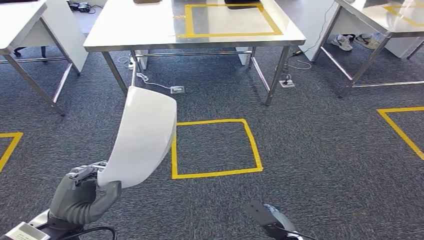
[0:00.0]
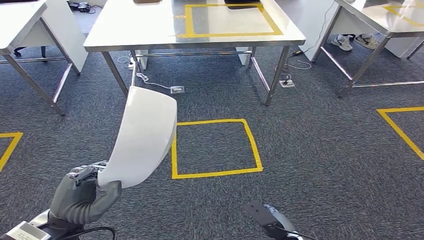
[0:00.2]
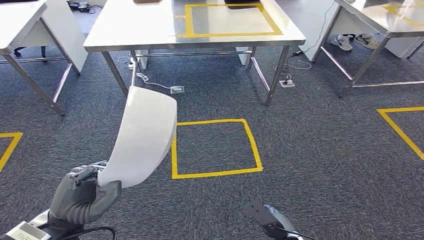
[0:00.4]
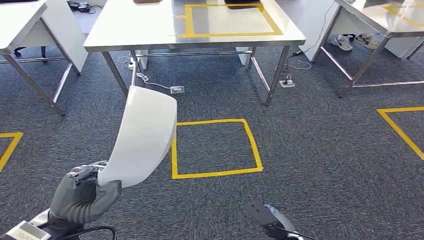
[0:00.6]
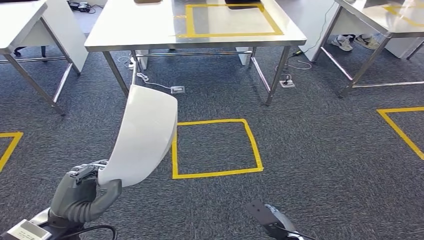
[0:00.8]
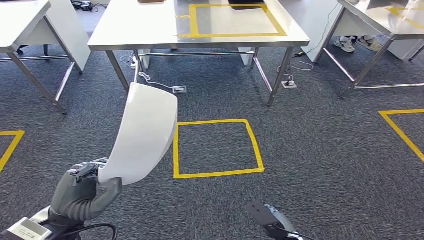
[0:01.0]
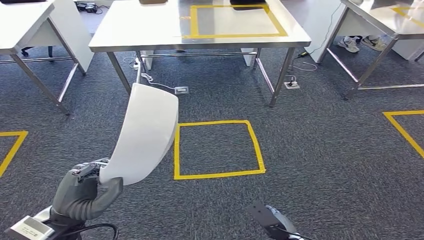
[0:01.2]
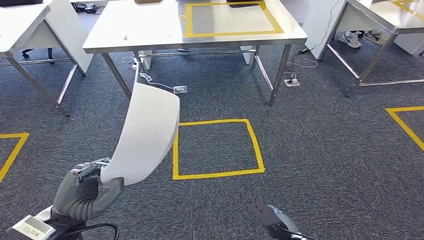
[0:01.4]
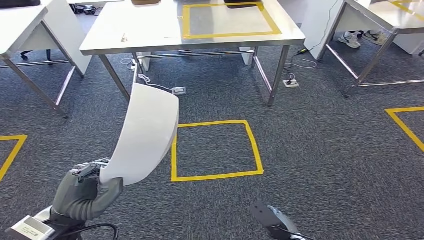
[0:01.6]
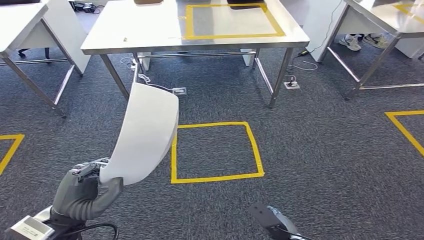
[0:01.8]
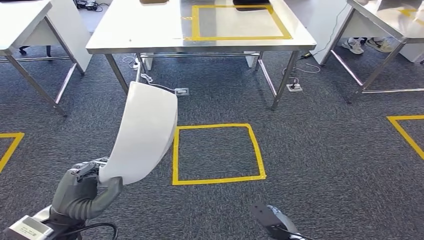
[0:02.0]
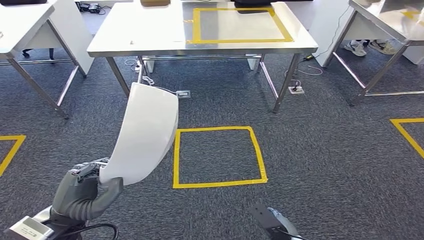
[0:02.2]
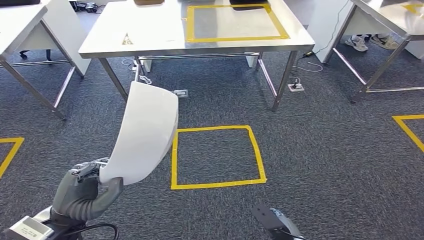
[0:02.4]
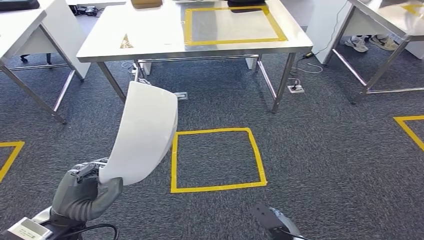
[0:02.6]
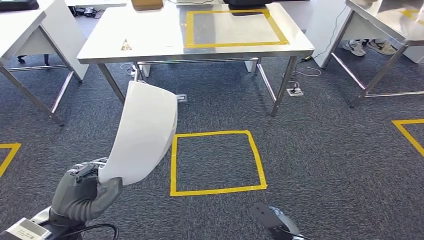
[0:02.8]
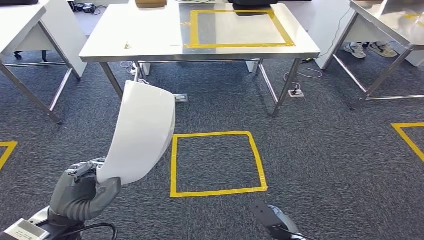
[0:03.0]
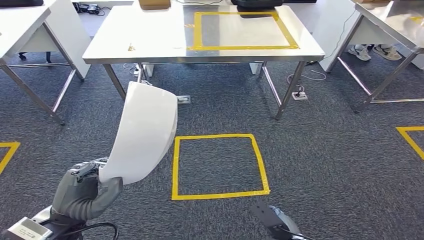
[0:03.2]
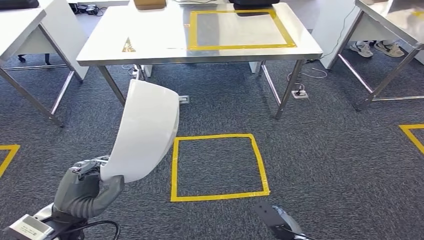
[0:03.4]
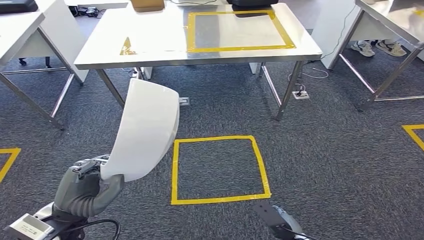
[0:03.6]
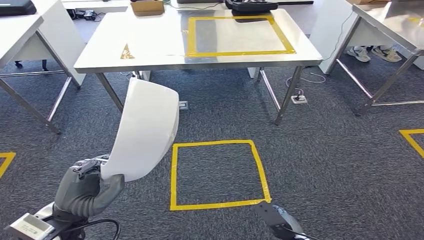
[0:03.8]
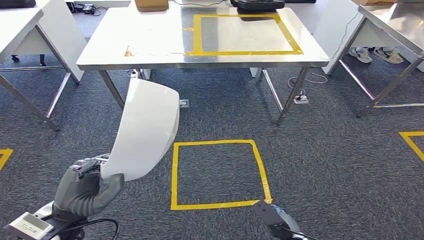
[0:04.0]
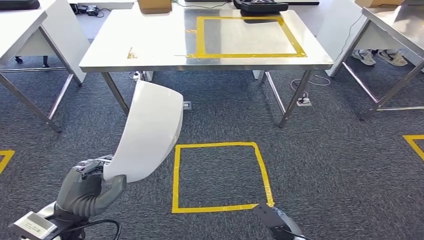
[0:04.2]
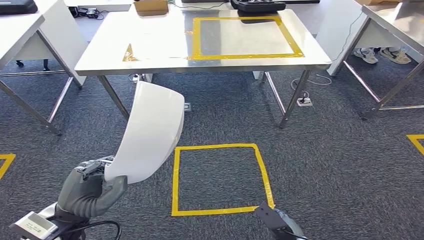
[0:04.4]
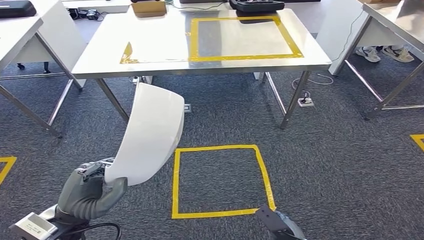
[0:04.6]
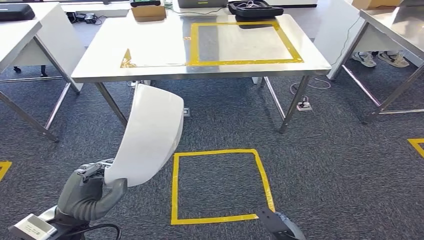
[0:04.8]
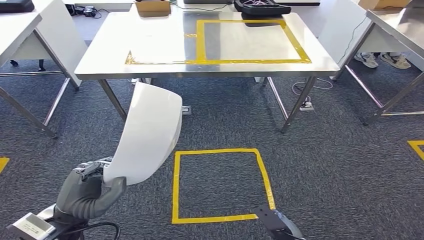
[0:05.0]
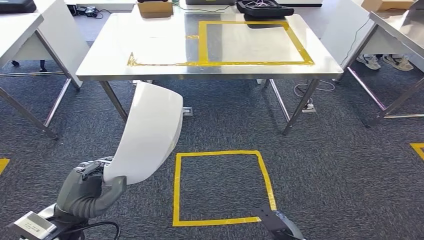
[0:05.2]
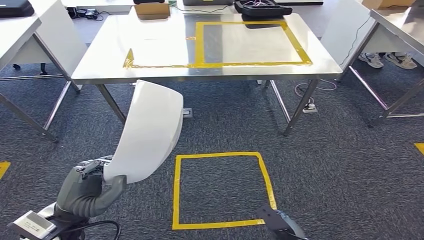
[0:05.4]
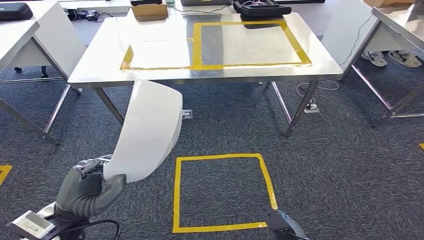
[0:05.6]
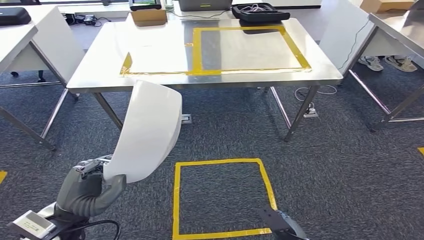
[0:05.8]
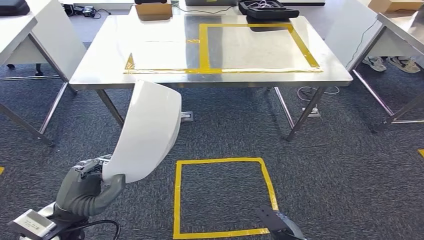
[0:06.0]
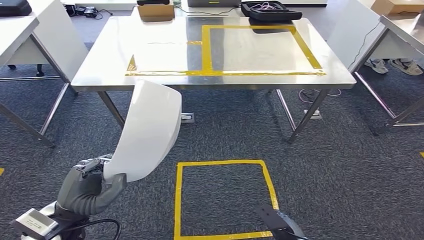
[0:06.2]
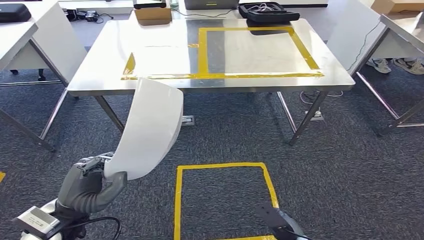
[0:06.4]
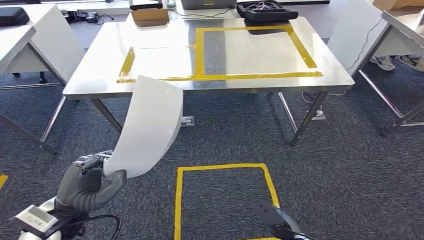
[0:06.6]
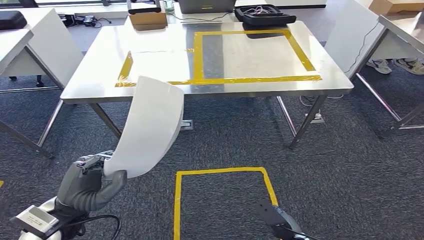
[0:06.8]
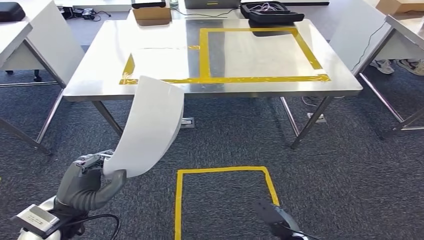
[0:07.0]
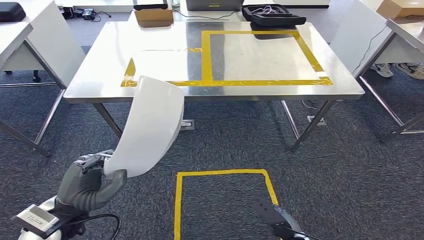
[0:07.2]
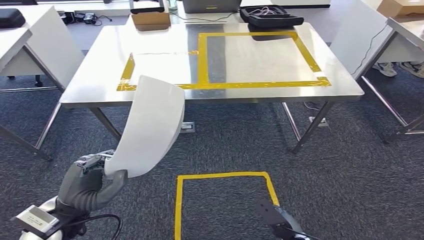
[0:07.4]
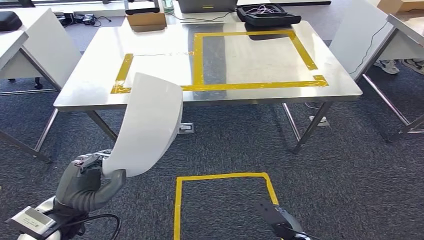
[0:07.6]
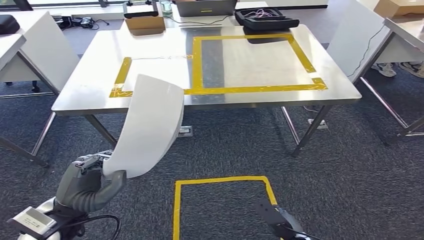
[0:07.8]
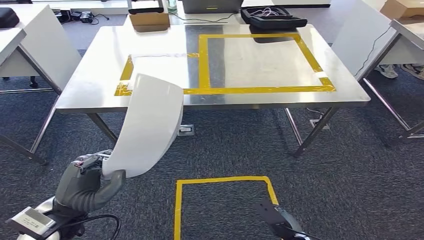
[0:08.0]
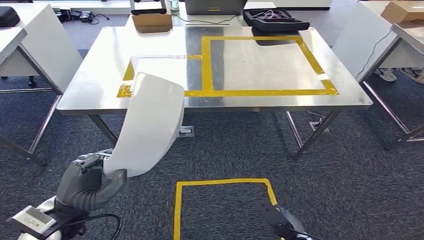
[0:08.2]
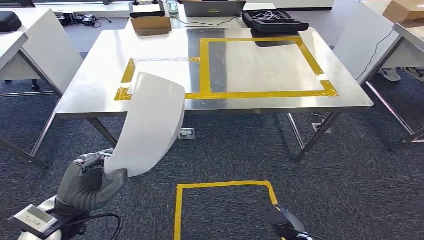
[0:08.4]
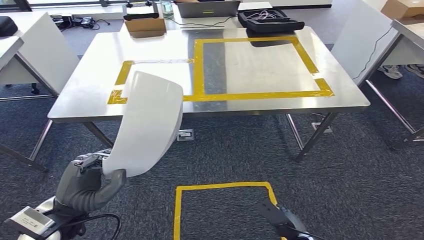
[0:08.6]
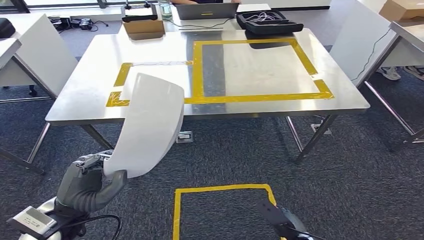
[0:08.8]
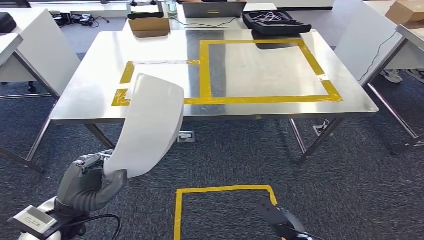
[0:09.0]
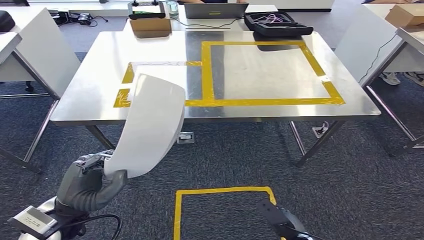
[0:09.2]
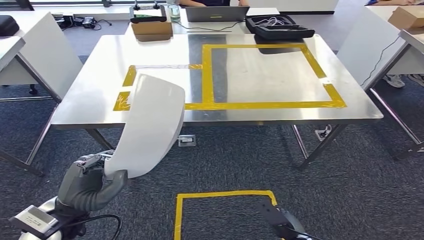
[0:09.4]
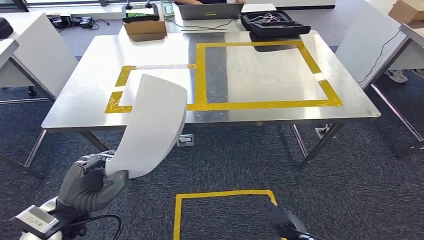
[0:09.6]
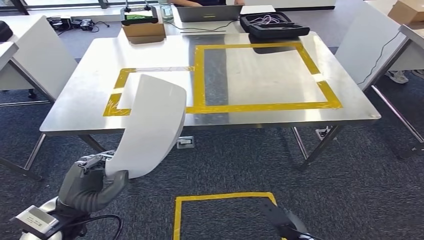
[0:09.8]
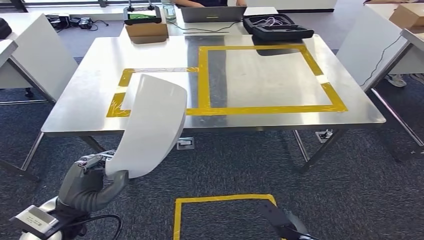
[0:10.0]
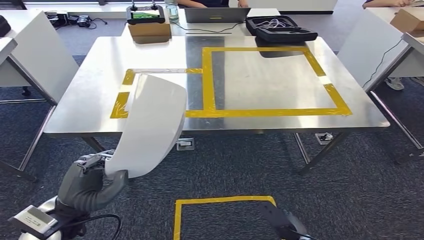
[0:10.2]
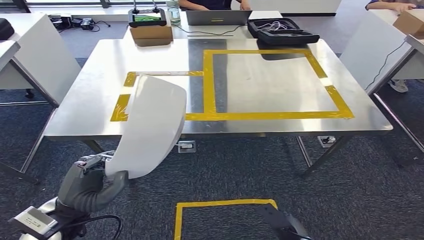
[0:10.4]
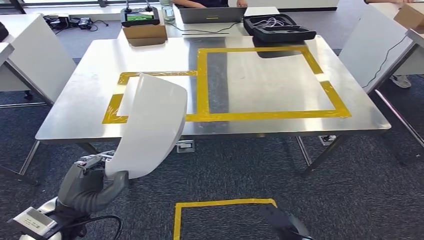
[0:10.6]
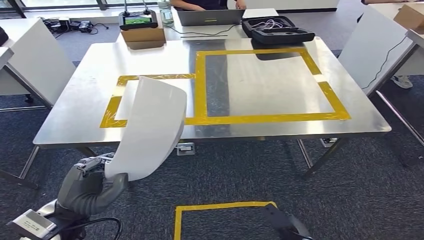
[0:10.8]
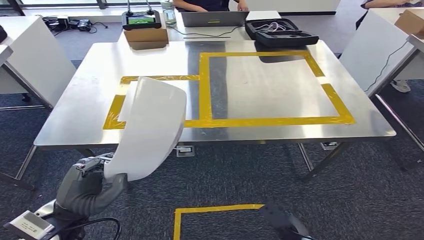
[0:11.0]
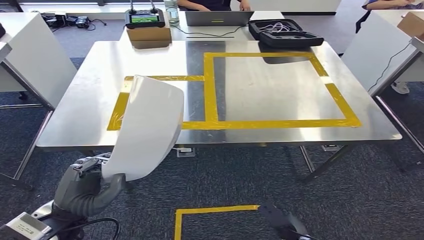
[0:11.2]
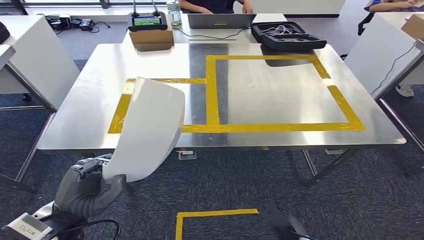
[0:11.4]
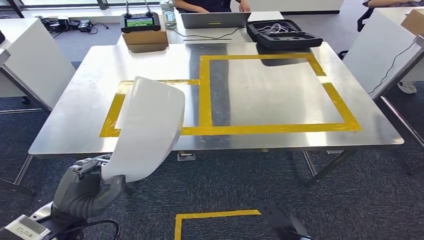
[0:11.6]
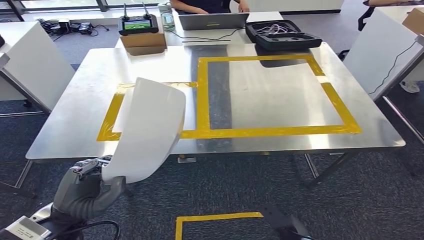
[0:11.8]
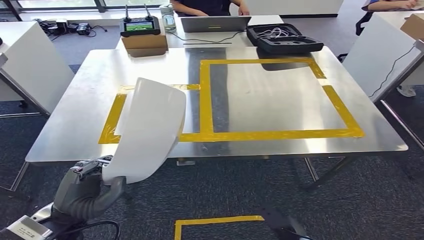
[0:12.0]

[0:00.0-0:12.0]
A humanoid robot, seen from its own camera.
0:00.0 to 0:01.6: The two hands keep their place.

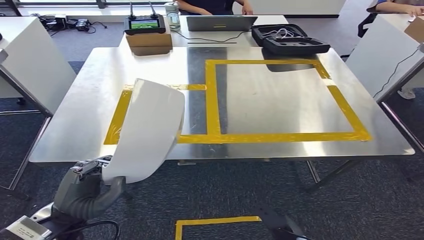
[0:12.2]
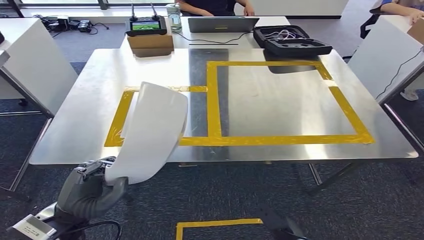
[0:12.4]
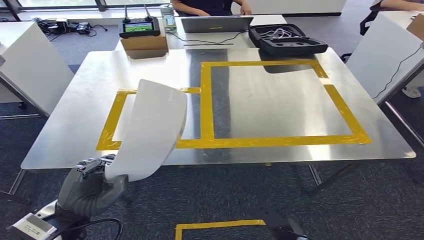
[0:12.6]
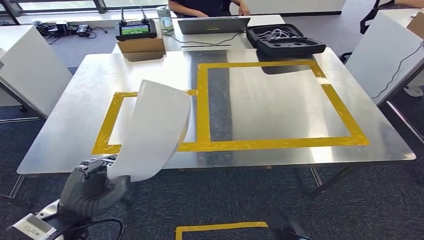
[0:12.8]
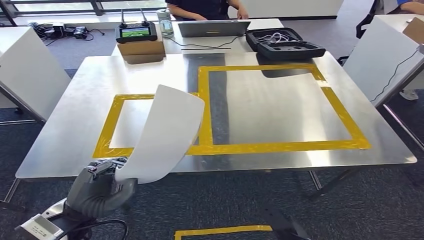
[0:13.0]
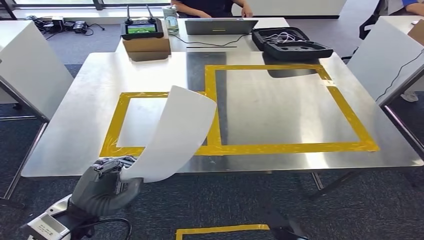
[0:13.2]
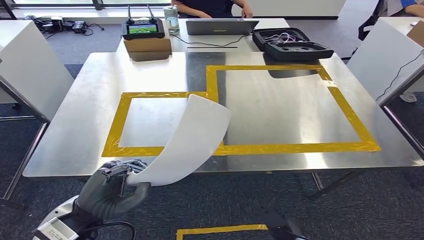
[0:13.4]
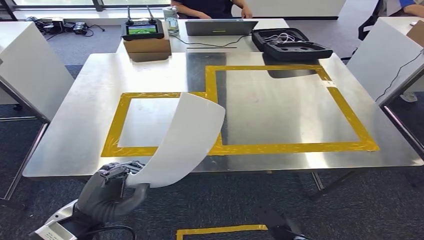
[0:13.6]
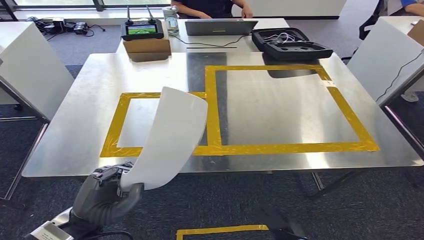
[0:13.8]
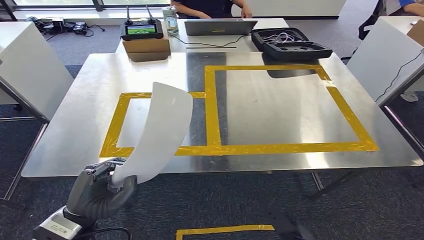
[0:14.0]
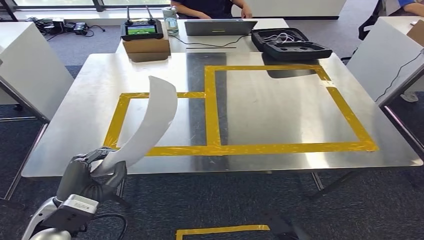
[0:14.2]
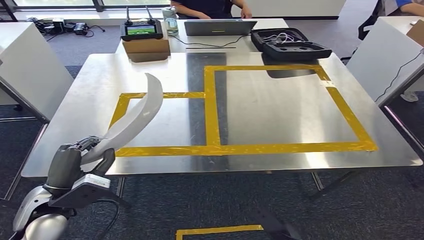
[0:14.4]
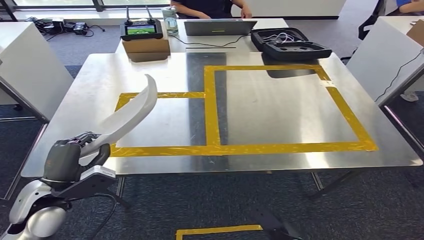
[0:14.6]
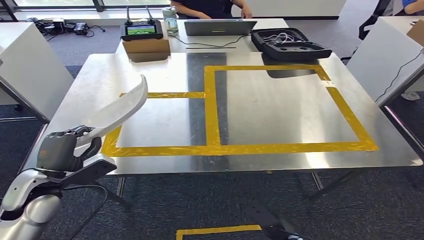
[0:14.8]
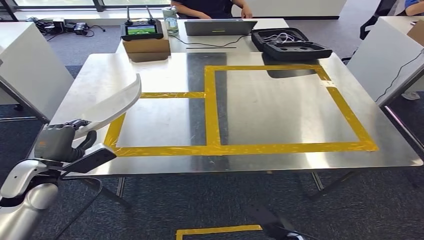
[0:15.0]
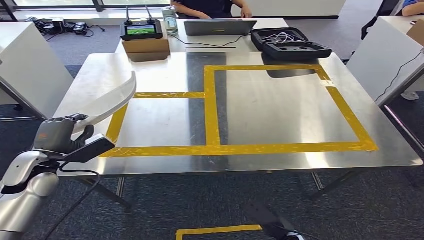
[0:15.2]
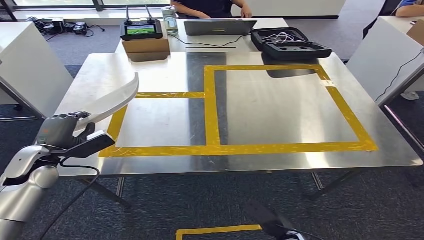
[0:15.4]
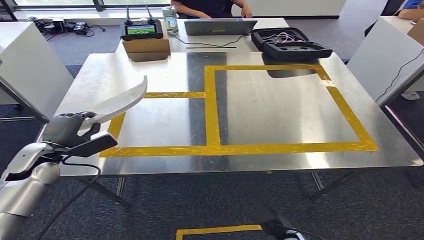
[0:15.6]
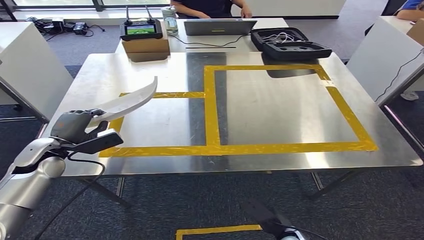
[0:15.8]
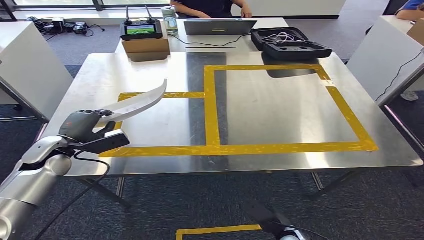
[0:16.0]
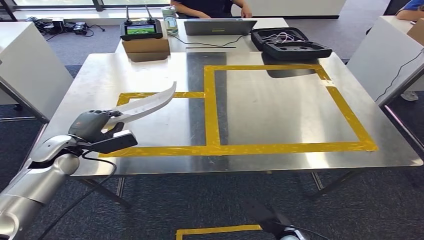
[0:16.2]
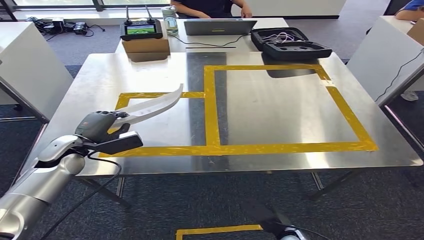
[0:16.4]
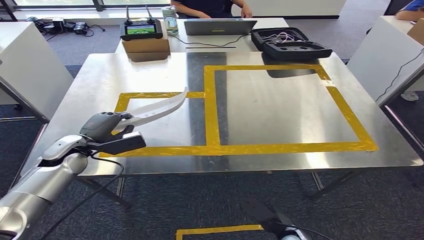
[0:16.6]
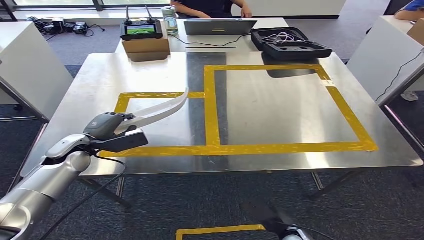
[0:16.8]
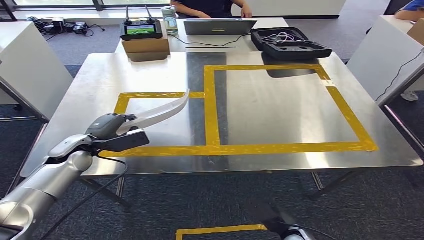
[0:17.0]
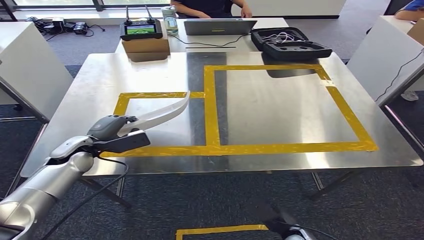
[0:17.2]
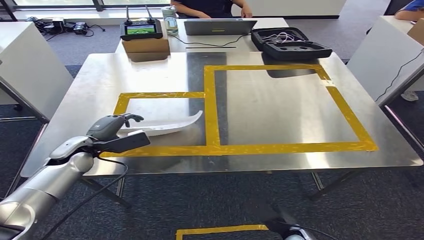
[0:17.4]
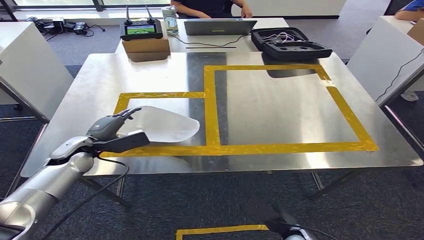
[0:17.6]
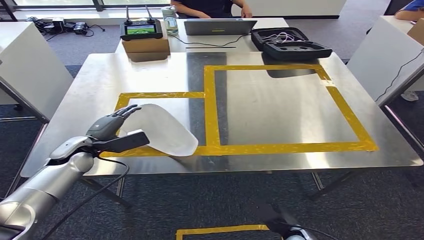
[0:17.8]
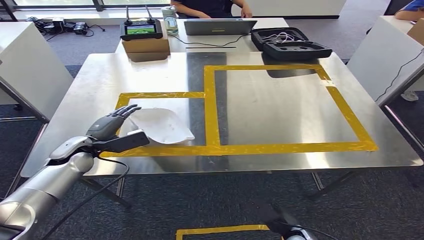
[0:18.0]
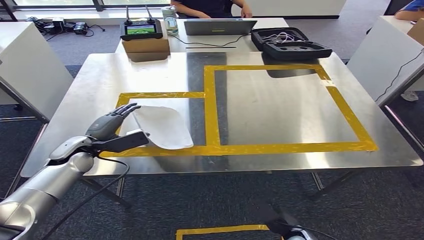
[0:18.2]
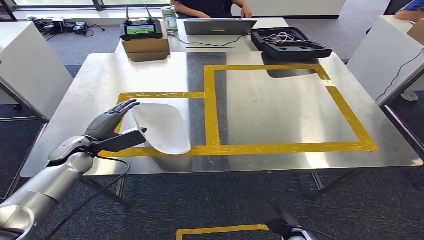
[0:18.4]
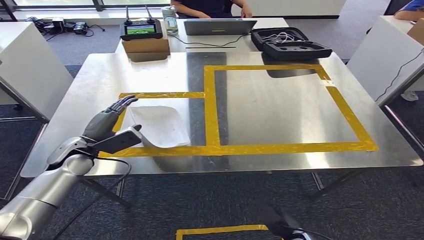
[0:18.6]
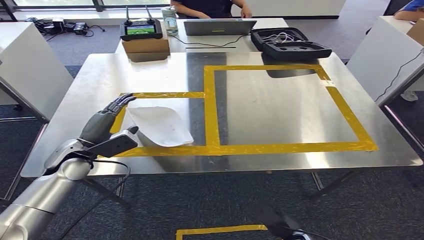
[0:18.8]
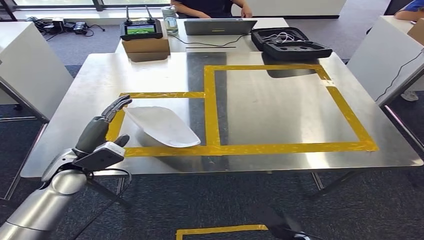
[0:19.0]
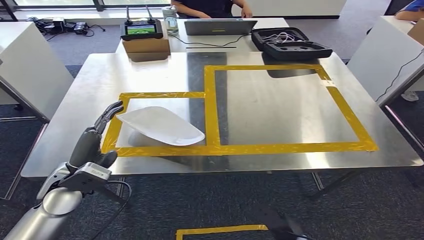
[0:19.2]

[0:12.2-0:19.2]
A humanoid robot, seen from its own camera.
Step, 0:12.2 to 0:14.4: Move the small parts to the workbench.
0:13.6 to 0:15.0: The left hand heads to the left and forward, covering some 15 cm.
0:15.0 to 0:16.4: The left hand goes some 10 cm forward.
0:16.4 to 0:17.8: There are only small adjustments of the hands.
0:17.8 to 0:19.2: The left hand goes approximately 10 cm backward and to the right.
